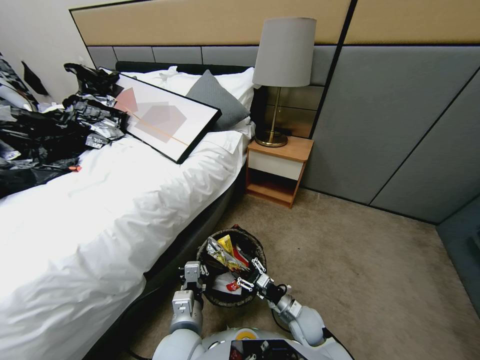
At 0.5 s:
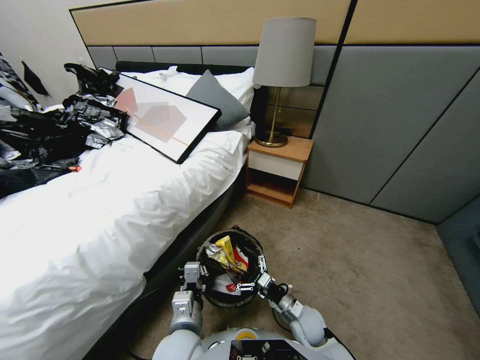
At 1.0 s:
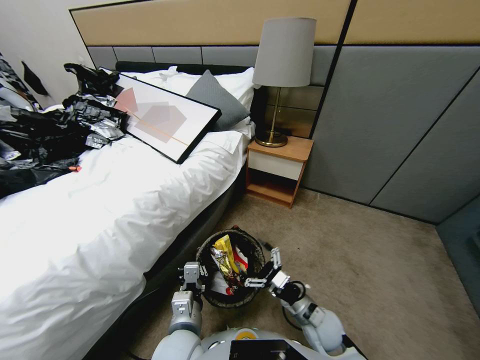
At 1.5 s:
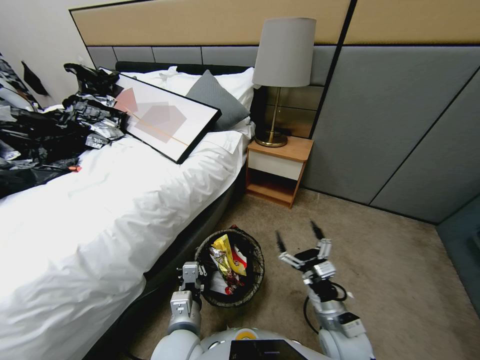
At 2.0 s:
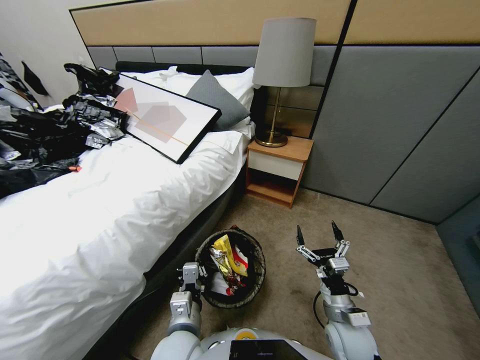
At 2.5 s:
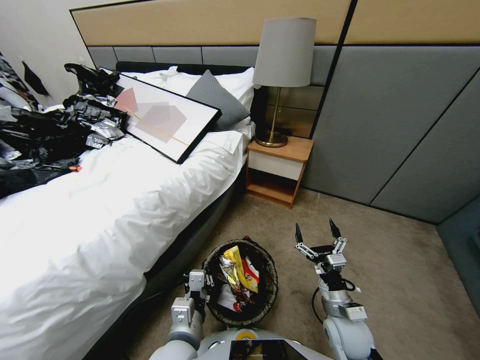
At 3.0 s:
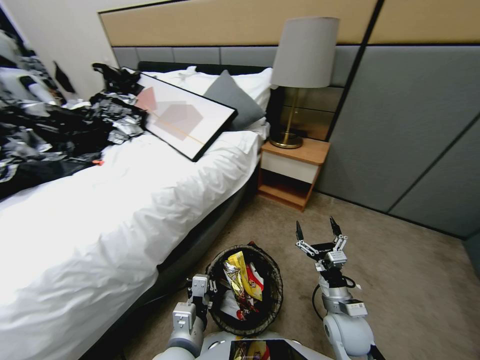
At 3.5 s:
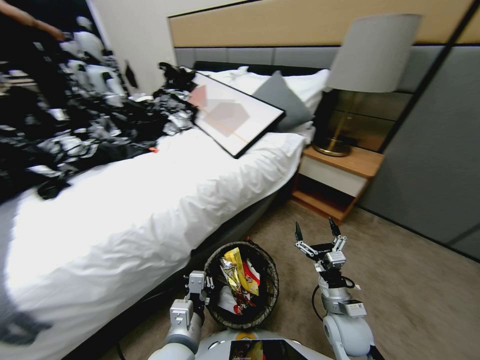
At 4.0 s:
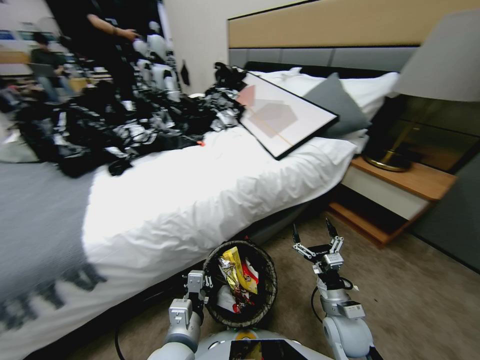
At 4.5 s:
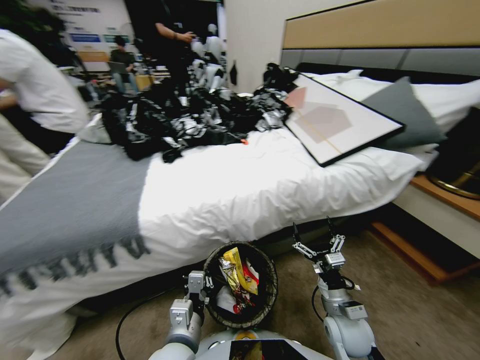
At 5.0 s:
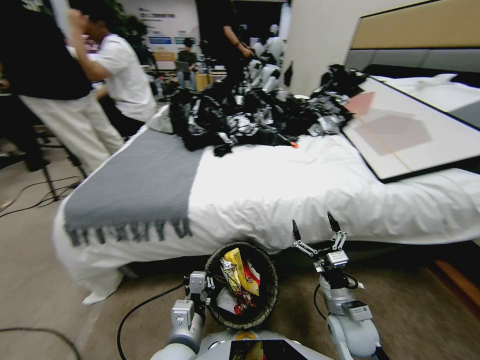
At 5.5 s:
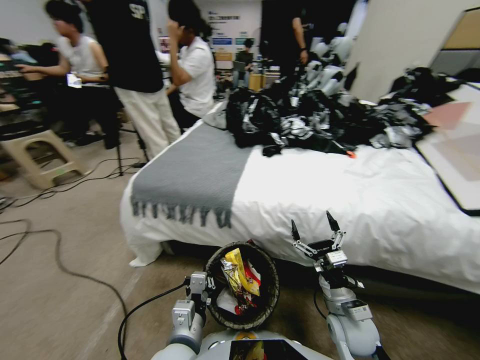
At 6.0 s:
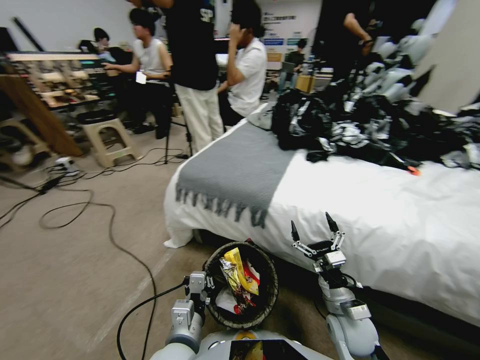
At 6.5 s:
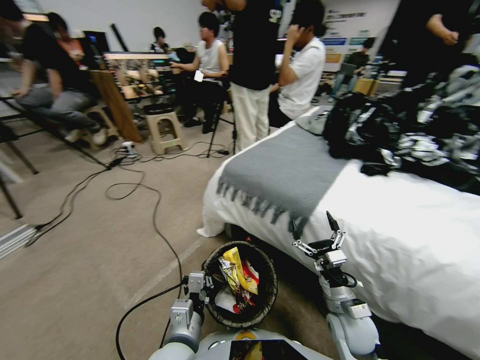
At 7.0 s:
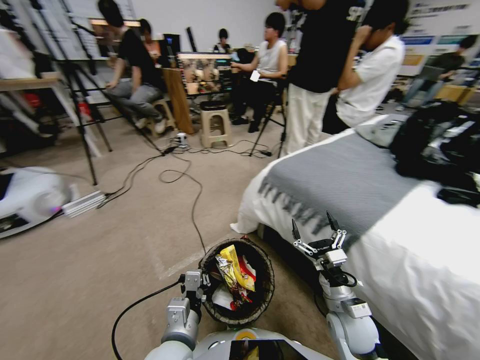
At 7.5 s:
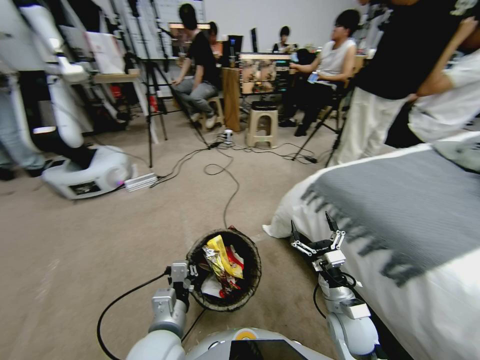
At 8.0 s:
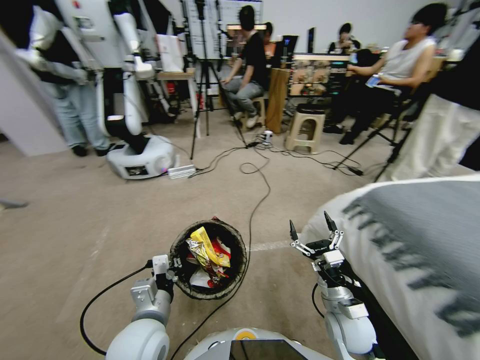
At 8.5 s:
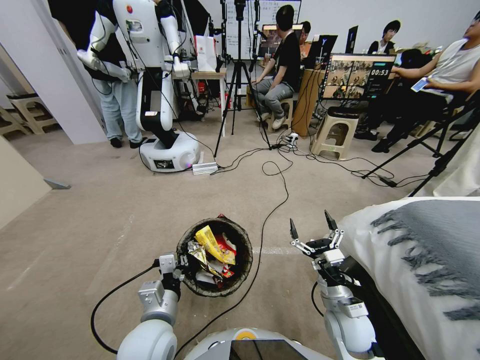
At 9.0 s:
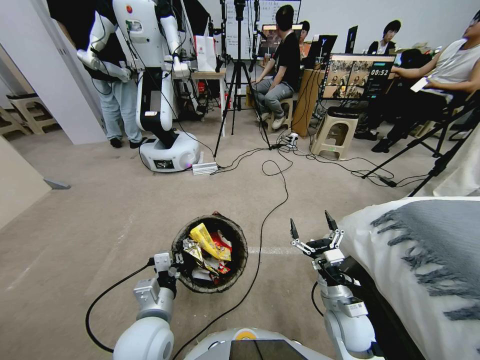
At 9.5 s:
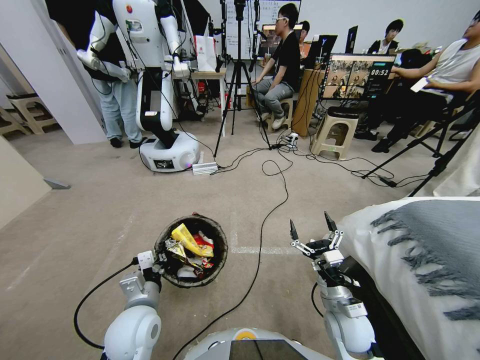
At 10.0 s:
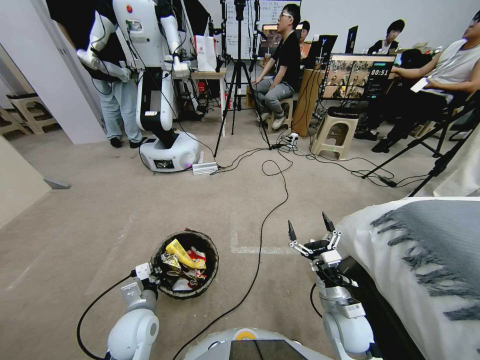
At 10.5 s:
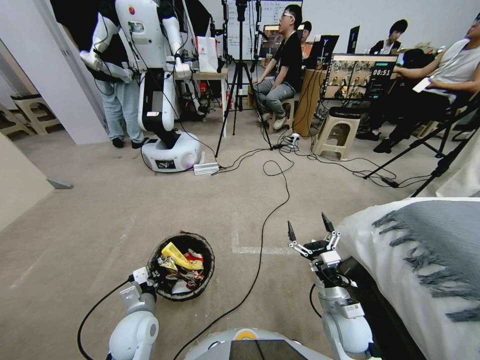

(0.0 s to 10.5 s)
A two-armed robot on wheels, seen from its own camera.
Task of the whole recording: Pick up the trash bin, then pick up the garbage from the floor and place it into the trash bin.
0.0 s - 2.0 s: The right gripper heads upward and to the right, covering about 10 cm.
6.5 s - 8.5 s: The left gripper travels to the left by some 5 cm.
8.5 s - 10.5 s: The left gripper goes roughly 10 cm downward and to the left.

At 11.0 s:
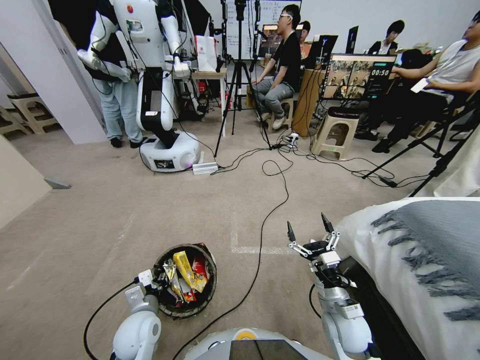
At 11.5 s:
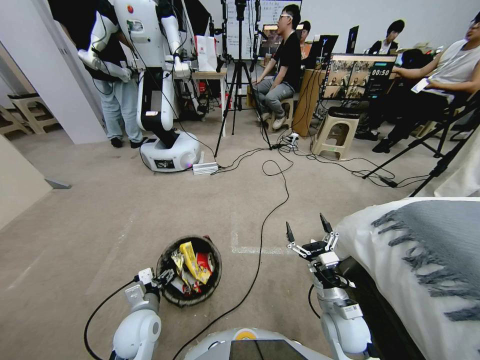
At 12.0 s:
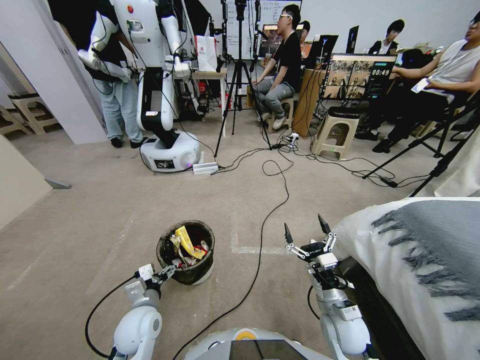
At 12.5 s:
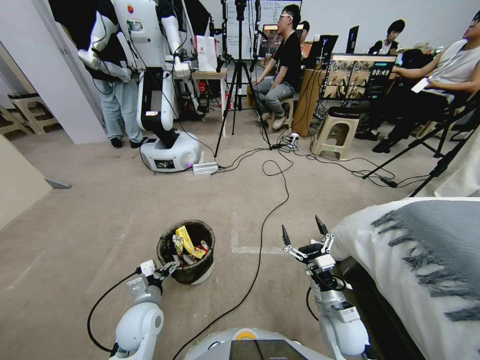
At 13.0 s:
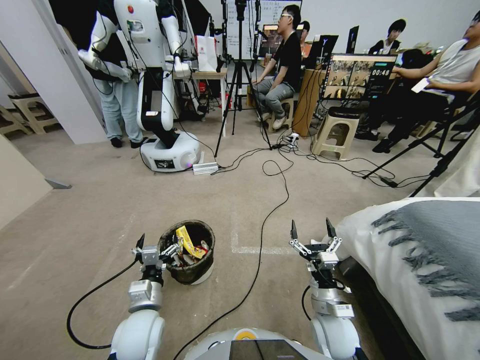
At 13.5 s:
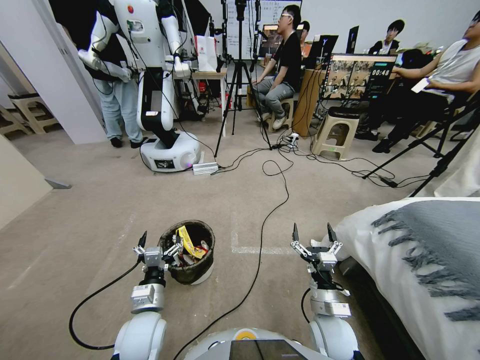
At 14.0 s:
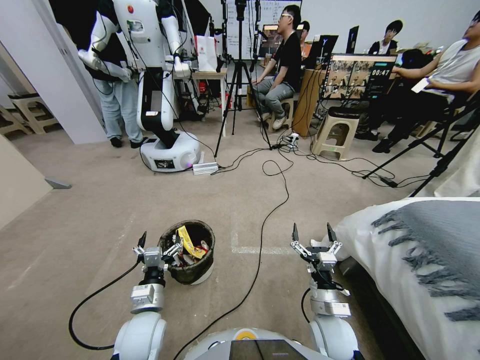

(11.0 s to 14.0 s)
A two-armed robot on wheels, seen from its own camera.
Task of the whole recording: Pick up the trash bin, then pick up the garbage from the floor and place it into the trash bin.
11.0 s - 12.5 s: The left gripper opens.

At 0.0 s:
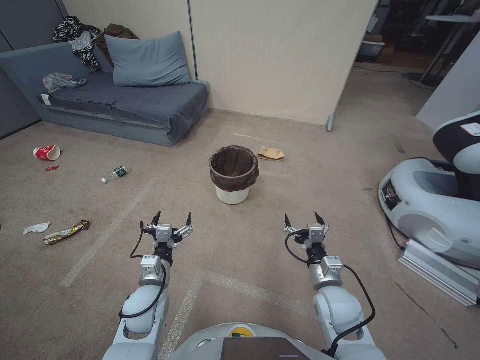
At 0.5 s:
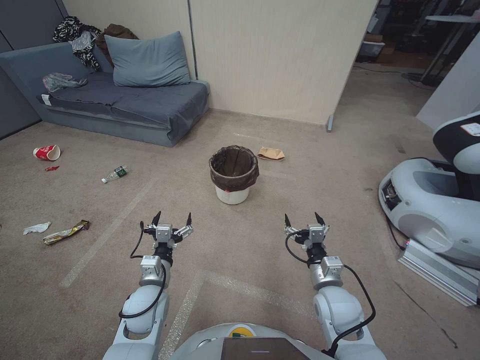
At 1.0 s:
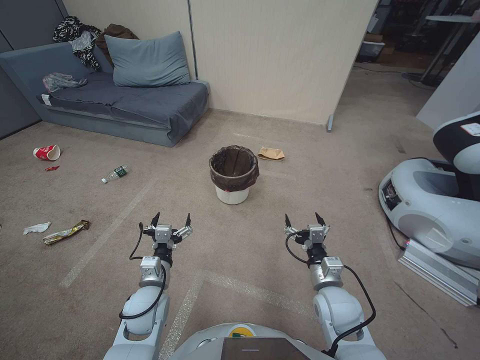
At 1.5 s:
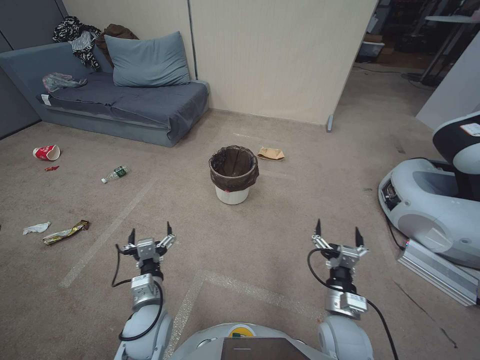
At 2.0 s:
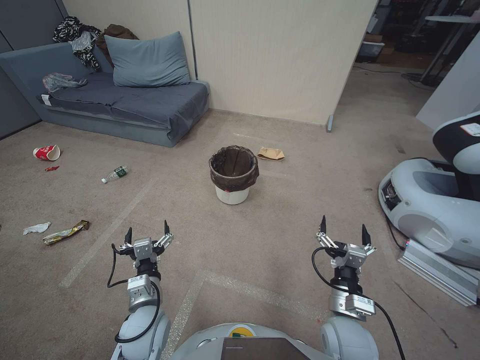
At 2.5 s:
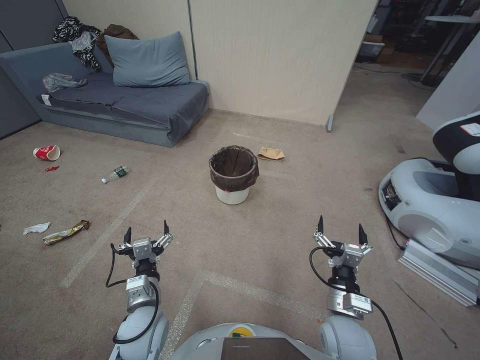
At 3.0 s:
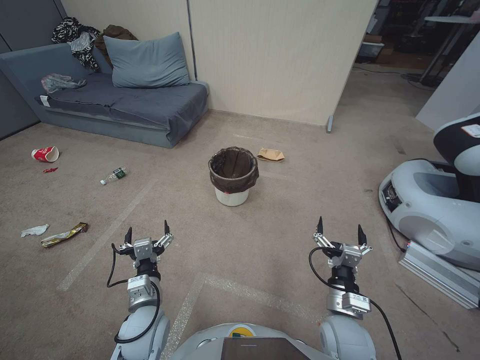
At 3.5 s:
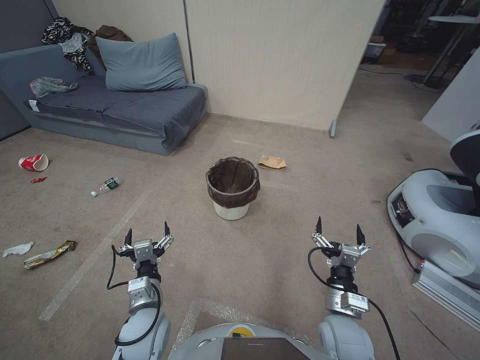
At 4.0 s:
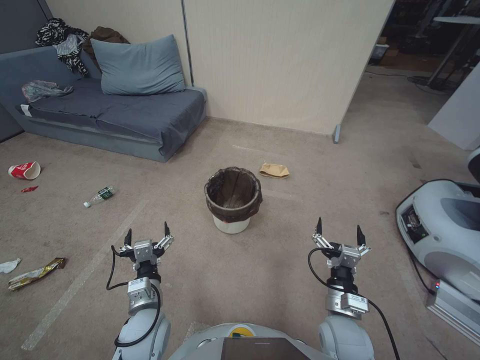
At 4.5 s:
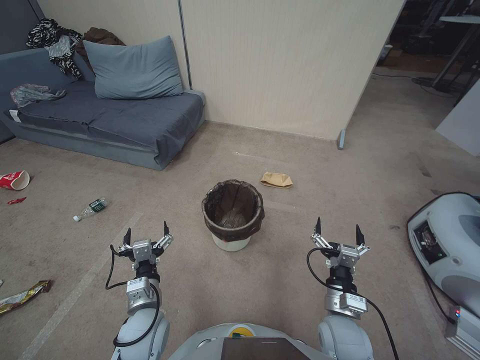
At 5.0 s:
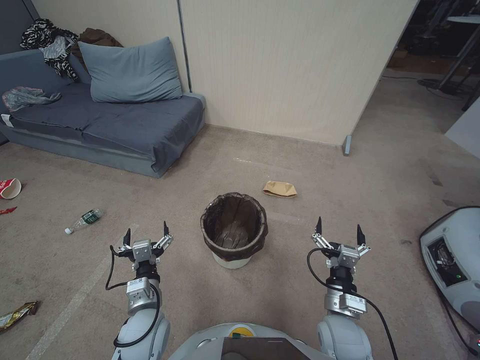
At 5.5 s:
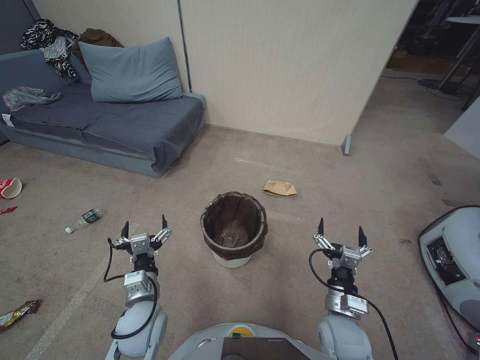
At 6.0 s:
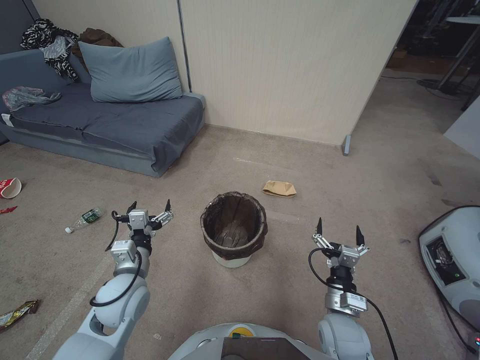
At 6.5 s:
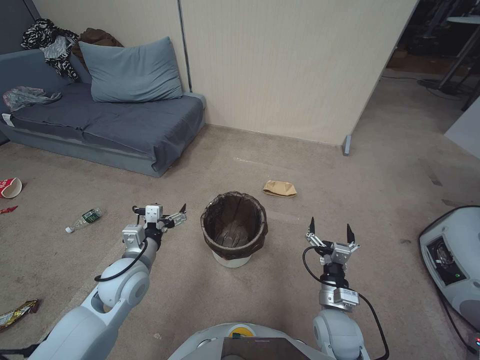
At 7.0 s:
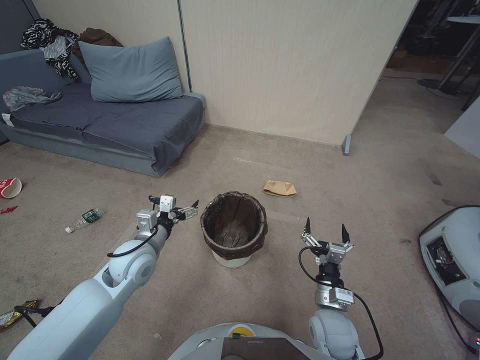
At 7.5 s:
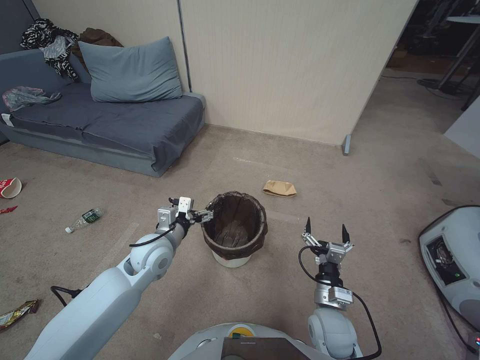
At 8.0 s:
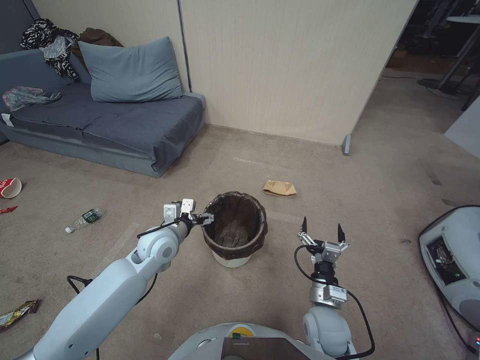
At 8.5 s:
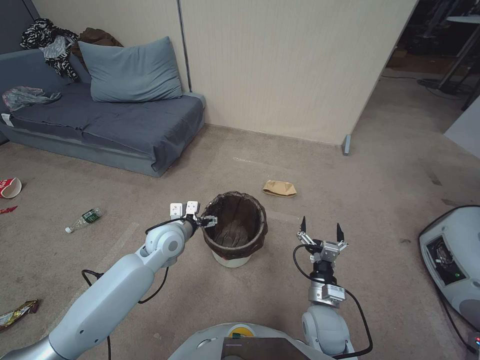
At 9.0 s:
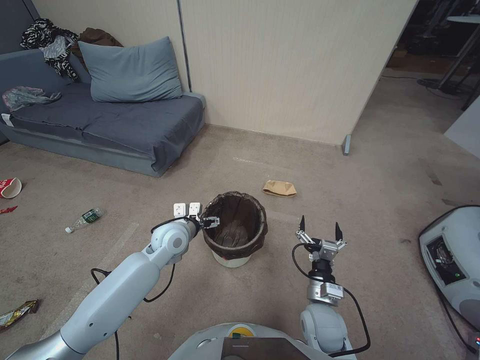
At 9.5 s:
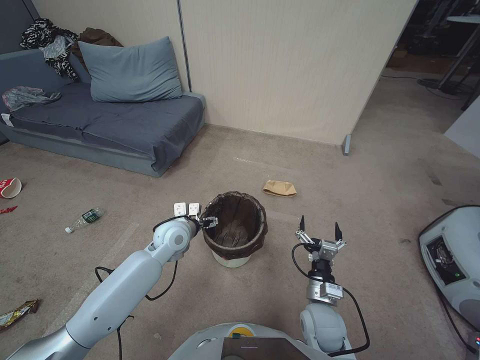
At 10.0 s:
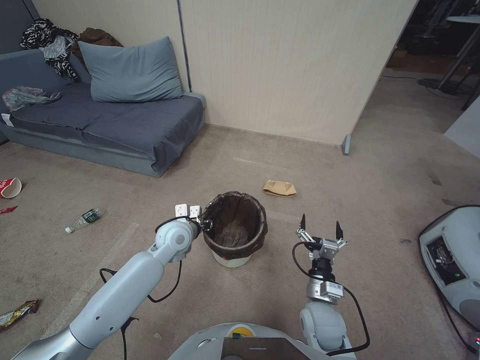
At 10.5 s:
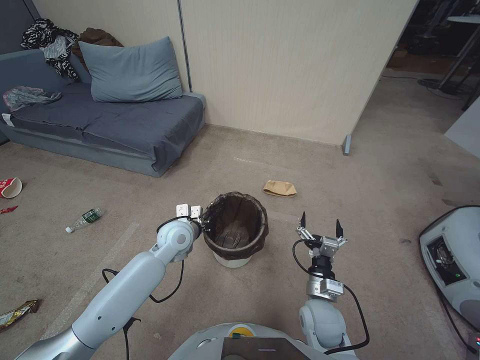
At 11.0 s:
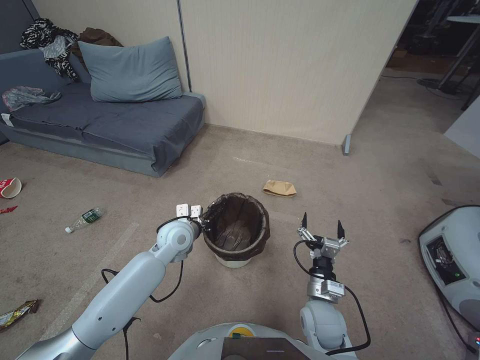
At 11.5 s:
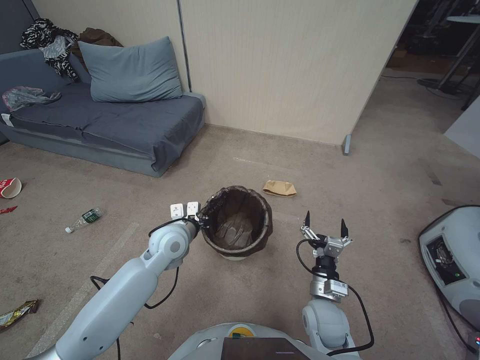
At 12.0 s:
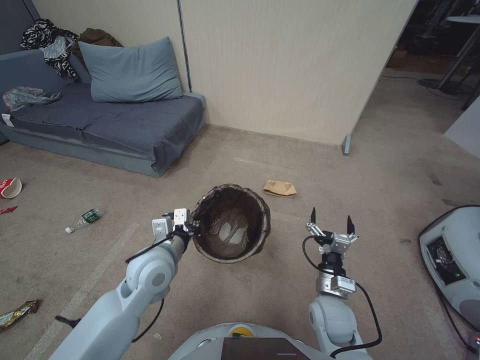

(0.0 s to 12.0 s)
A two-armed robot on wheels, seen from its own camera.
Task of the whole recording: Pick up the trash bin, then pick up the garbage from the floor and place it into the trash bin.
6.0 s - 8.0 s: The left gripper travels forward by about 15 cm.
8.0 s - 10.0 s: The left gripper moves some 5 cm, and closes up.
10.0 s - 12.0 s: The left gripper shifts some 10 cm backward and upward, and closes.
